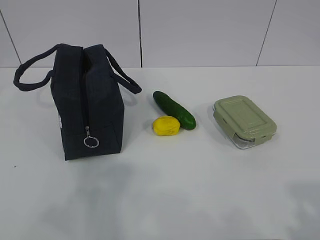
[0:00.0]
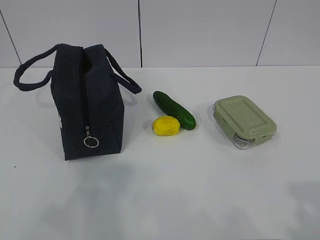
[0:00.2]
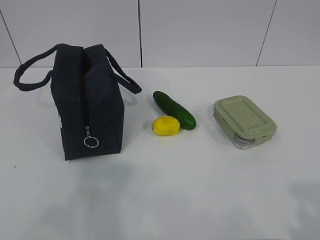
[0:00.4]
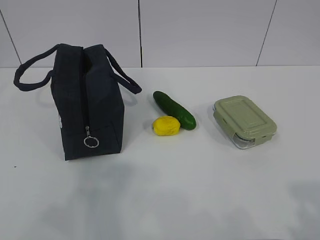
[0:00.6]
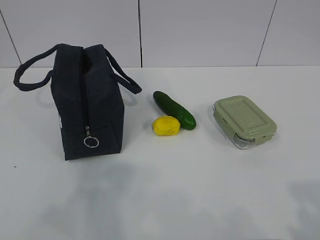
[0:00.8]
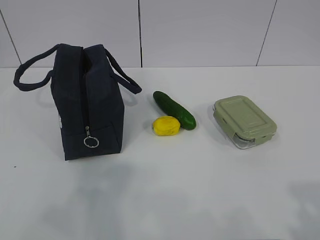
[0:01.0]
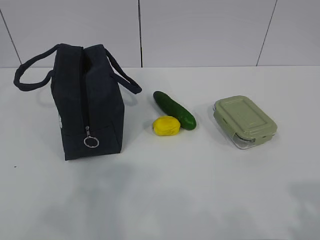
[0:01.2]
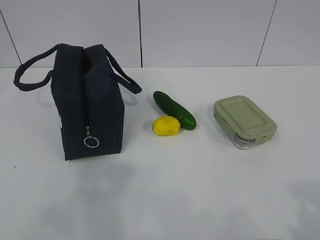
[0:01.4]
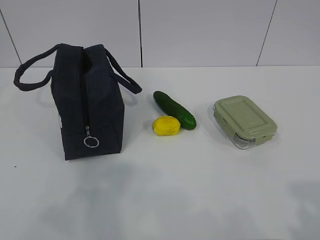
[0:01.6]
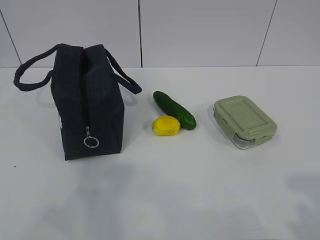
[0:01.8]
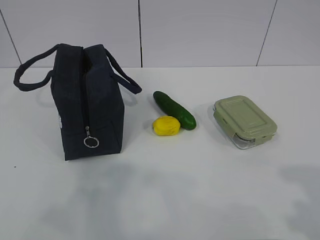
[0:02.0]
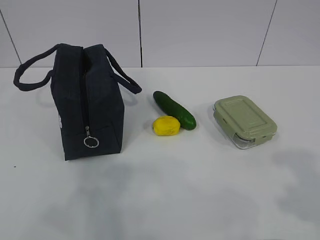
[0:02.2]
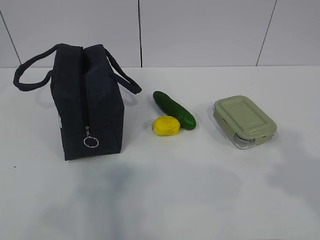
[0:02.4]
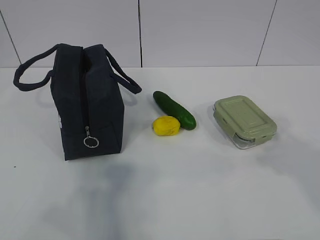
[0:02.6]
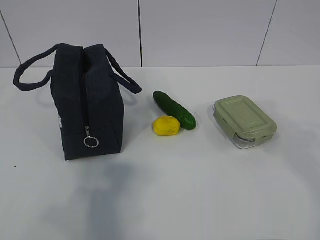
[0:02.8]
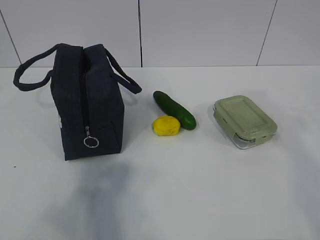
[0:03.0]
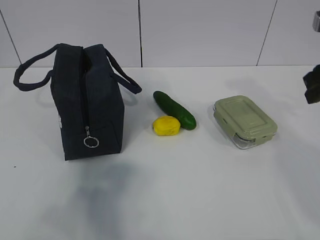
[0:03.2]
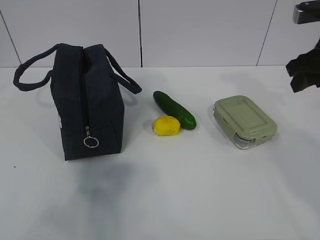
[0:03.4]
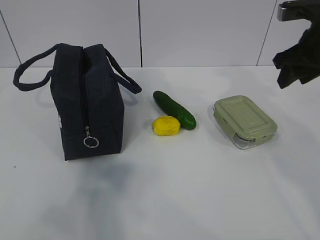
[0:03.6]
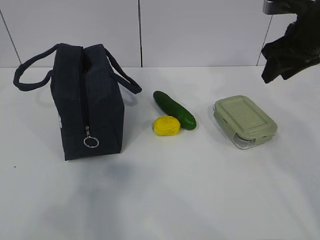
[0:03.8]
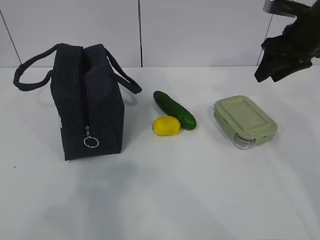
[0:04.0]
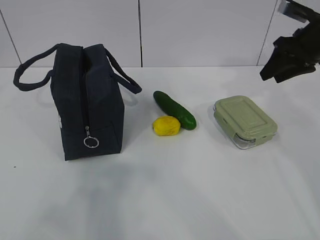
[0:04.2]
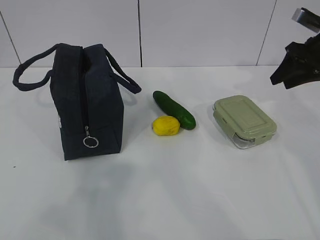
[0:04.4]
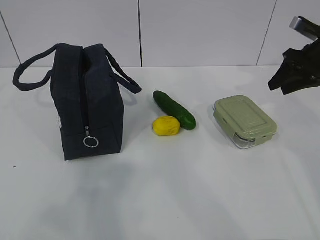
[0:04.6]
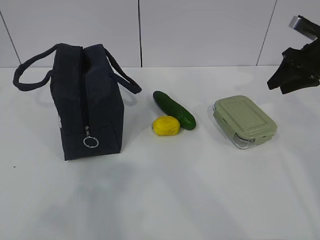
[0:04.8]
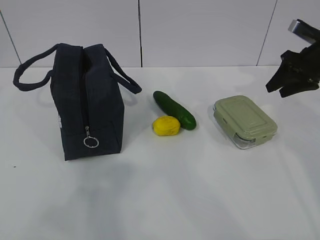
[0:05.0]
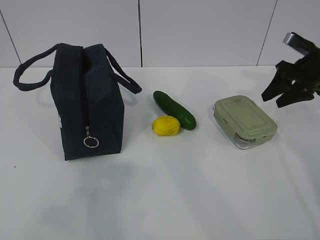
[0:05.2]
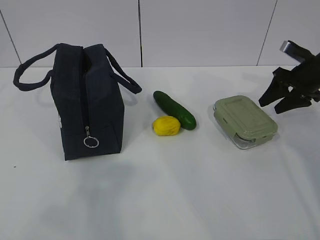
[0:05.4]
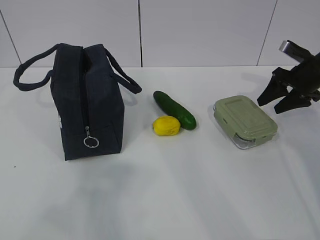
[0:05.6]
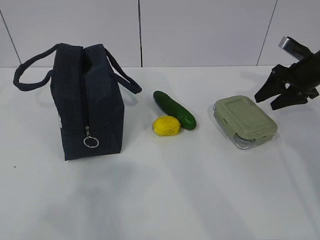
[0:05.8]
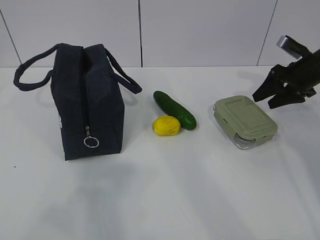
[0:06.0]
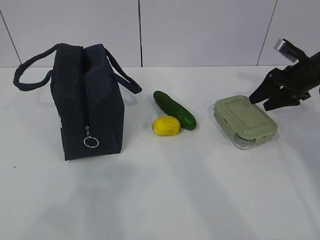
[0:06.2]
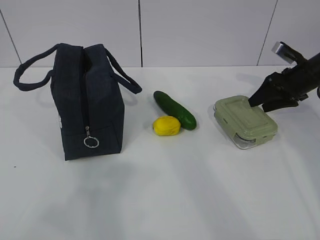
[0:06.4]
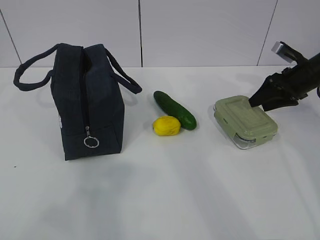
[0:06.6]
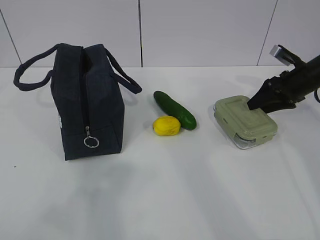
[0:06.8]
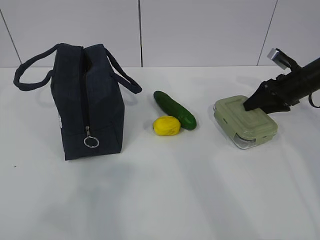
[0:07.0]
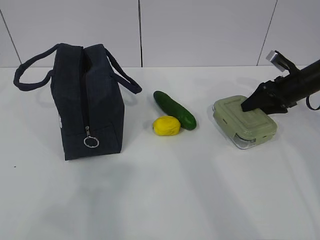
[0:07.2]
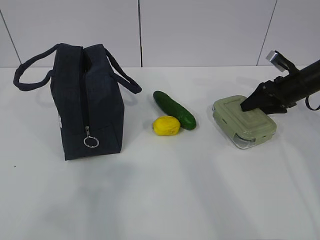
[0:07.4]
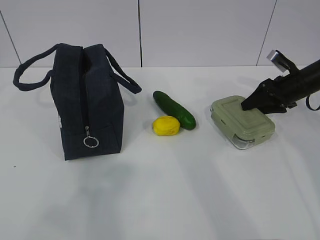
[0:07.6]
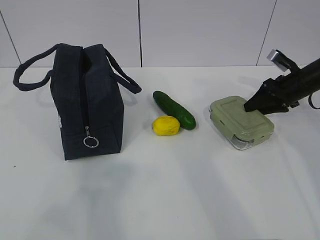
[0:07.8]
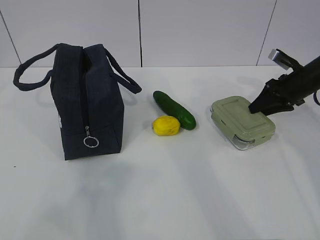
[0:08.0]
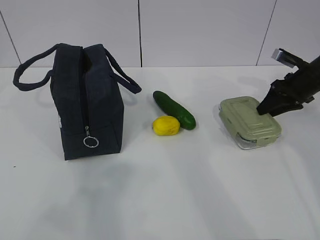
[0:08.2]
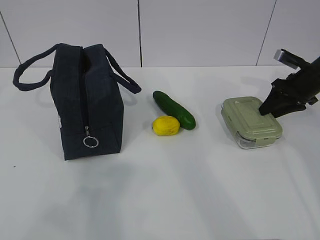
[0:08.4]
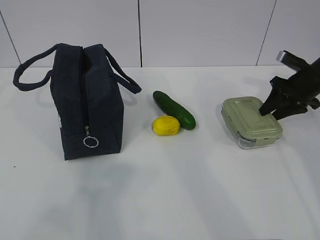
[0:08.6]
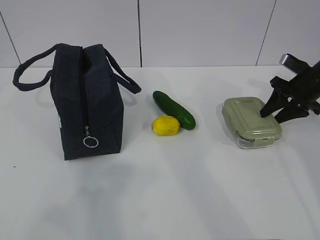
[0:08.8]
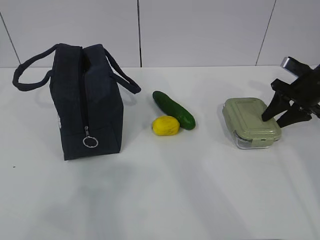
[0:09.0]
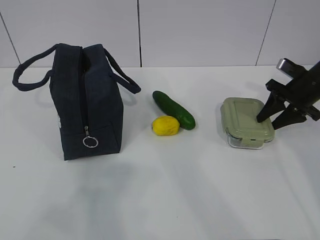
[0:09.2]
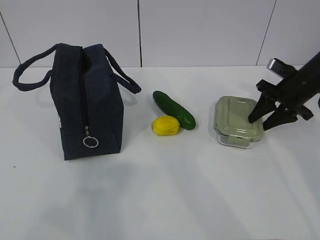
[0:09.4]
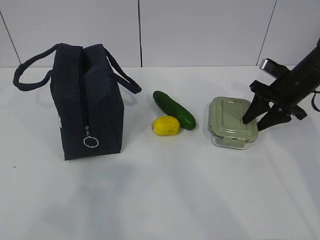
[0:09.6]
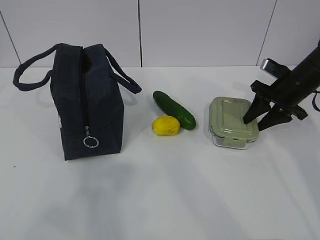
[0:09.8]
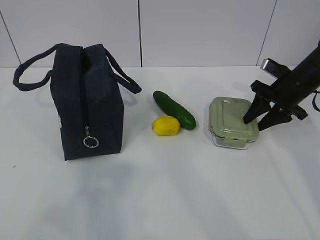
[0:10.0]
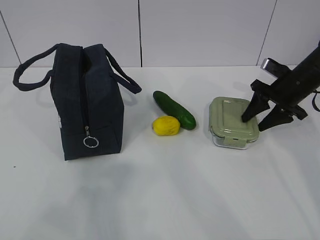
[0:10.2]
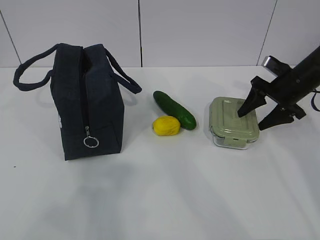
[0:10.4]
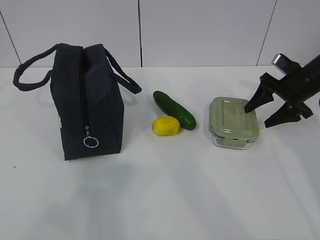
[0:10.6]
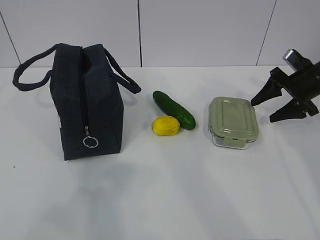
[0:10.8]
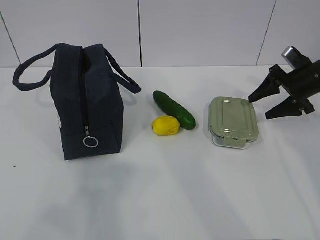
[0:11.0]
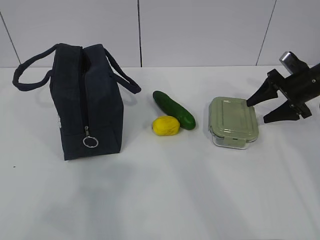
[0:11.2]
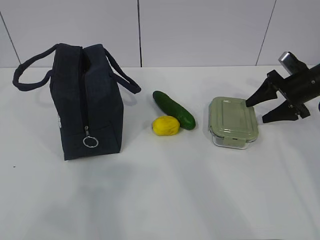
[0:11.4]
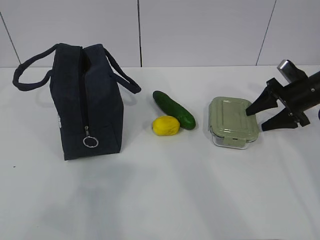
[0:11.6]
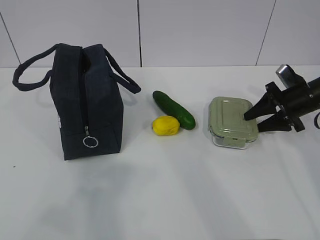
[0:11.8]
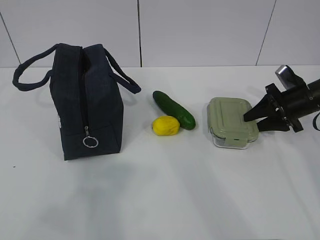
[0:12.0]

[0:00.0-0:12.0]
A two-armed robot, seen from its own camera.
0:01.6 to 0:03.0: The right gripper is displaced forward by approximately 25 cm.
0:03.0 to 0:04.4: The right gripper shifts some 20 cm forward.
0:04.4 to 0:06.0: The right gripper goes about 5 cm downward.
0:06.0 to 0:07.6: The right gripper shifts by roughly 5 cm.
0:09.0 to 0:10.4: The grippers make only small movements.
0:10.4 to 0:12.0: The grippers stay close to where they were, moving slightly.

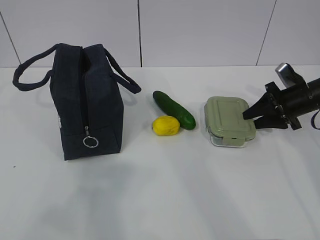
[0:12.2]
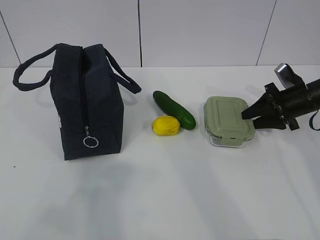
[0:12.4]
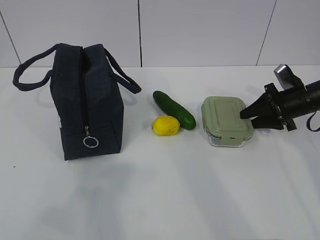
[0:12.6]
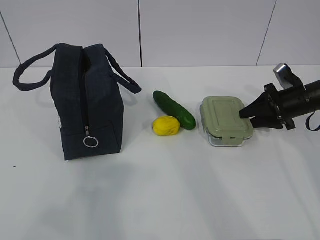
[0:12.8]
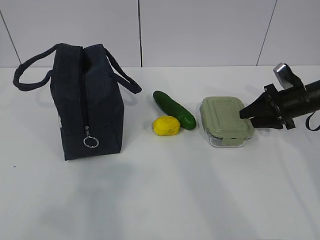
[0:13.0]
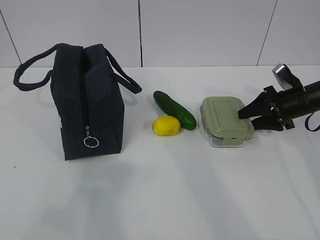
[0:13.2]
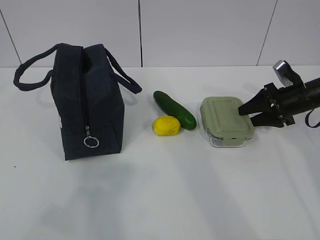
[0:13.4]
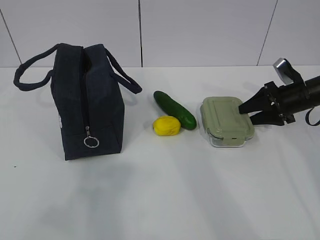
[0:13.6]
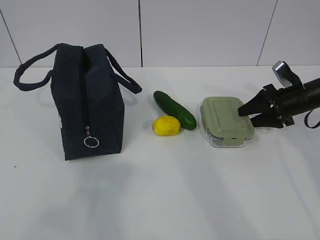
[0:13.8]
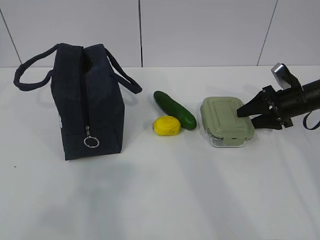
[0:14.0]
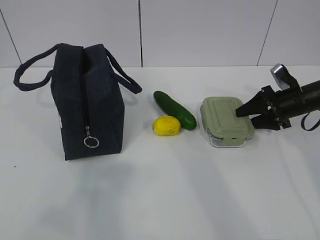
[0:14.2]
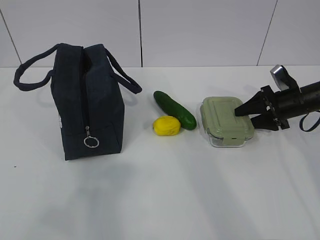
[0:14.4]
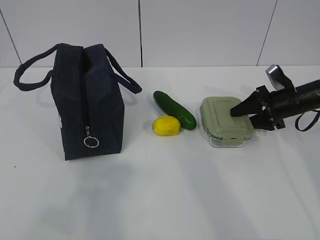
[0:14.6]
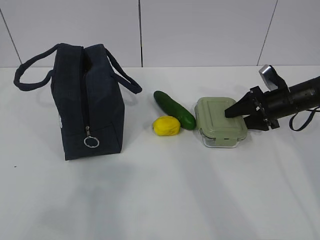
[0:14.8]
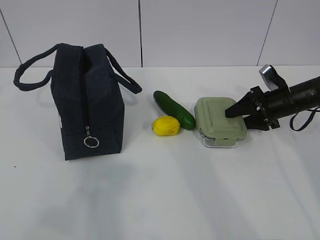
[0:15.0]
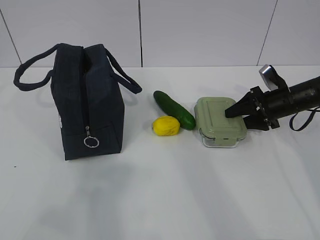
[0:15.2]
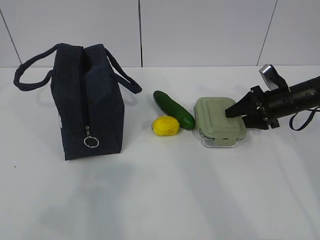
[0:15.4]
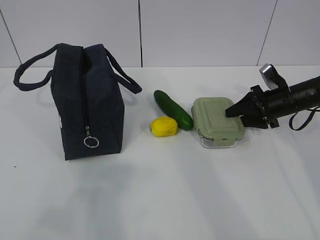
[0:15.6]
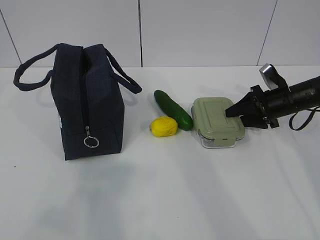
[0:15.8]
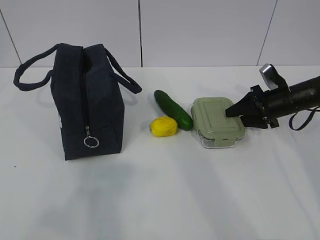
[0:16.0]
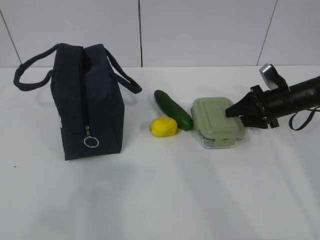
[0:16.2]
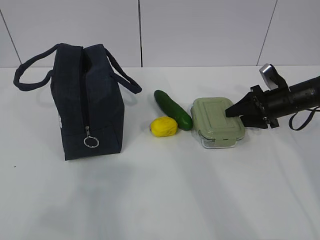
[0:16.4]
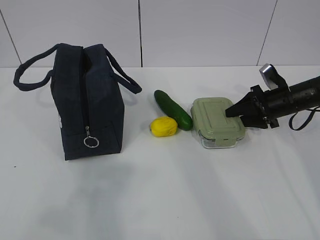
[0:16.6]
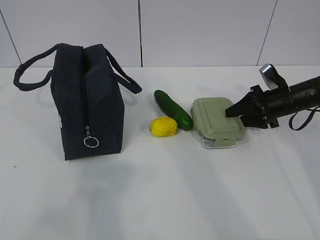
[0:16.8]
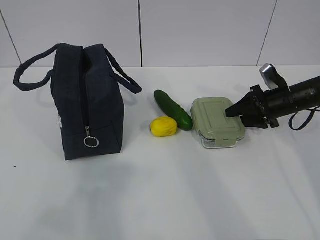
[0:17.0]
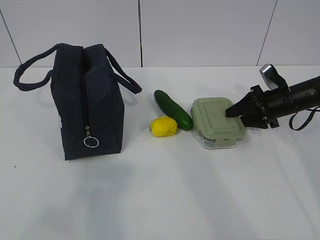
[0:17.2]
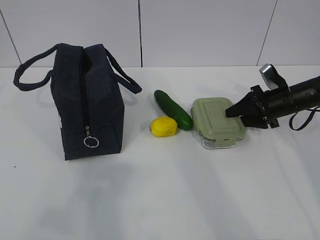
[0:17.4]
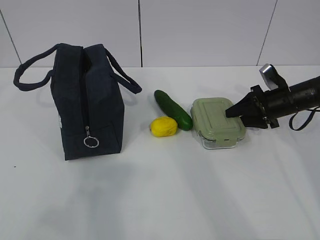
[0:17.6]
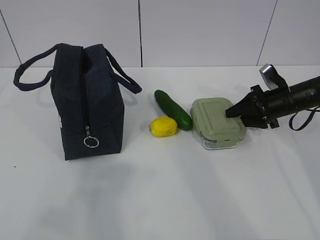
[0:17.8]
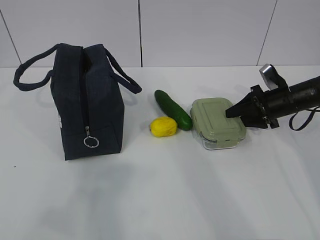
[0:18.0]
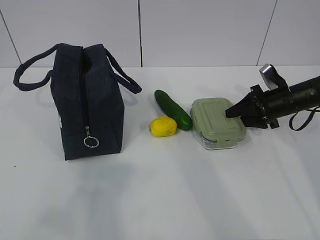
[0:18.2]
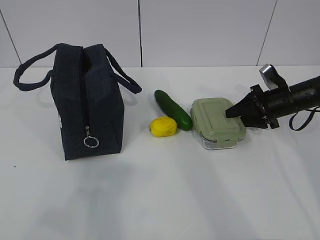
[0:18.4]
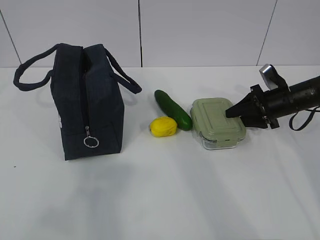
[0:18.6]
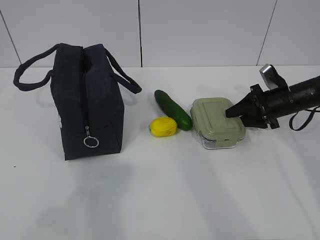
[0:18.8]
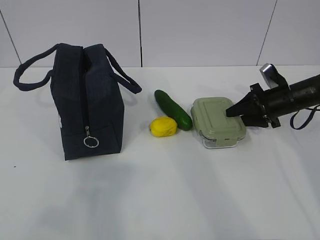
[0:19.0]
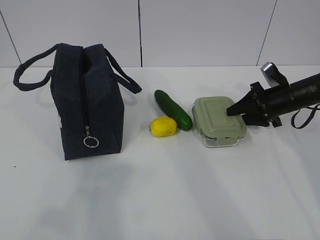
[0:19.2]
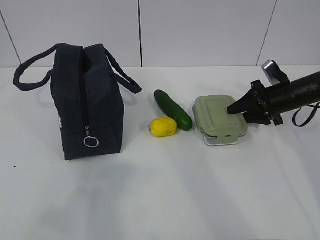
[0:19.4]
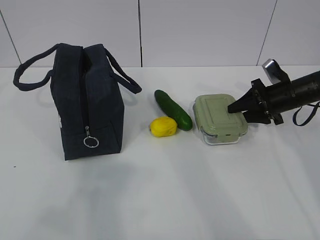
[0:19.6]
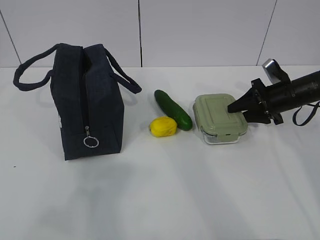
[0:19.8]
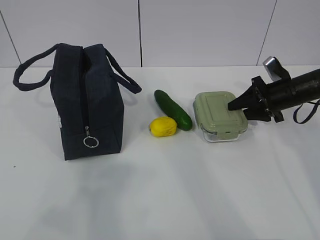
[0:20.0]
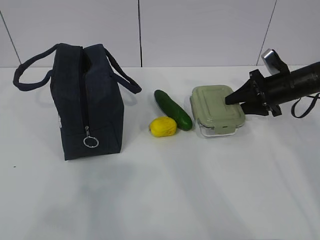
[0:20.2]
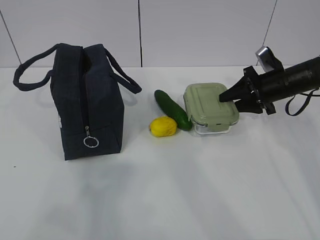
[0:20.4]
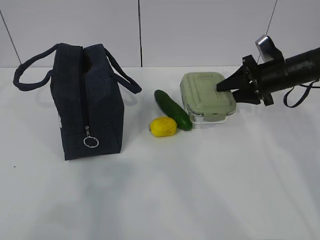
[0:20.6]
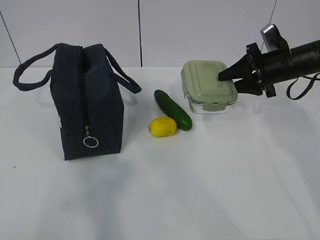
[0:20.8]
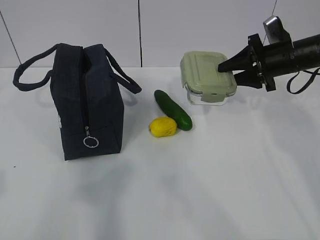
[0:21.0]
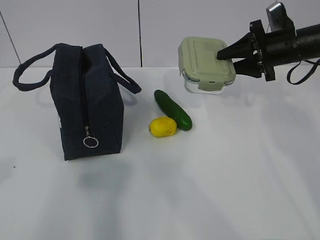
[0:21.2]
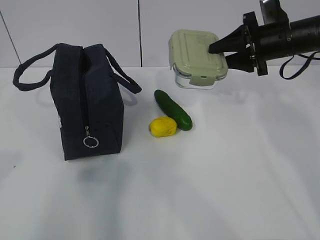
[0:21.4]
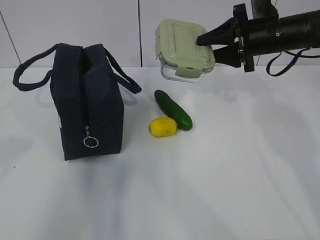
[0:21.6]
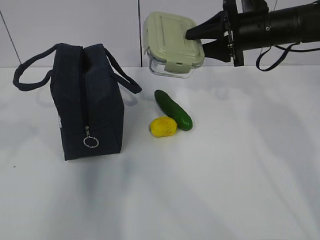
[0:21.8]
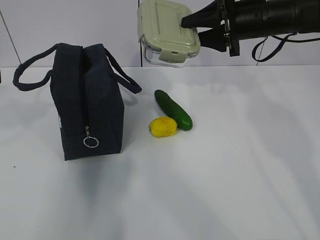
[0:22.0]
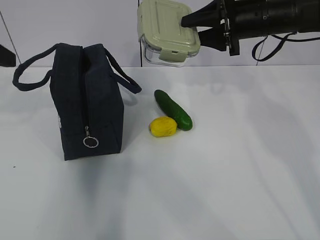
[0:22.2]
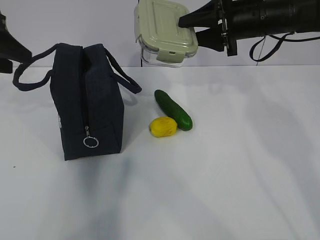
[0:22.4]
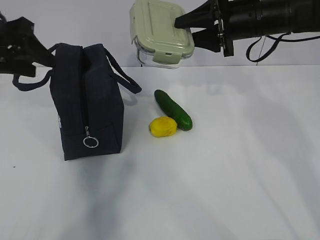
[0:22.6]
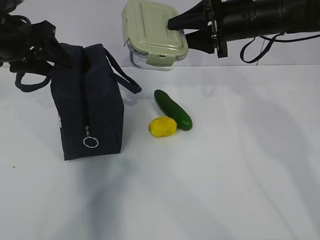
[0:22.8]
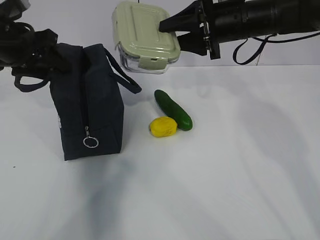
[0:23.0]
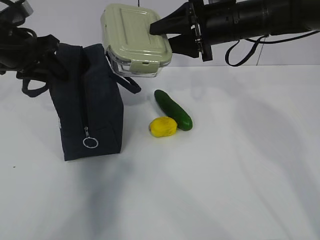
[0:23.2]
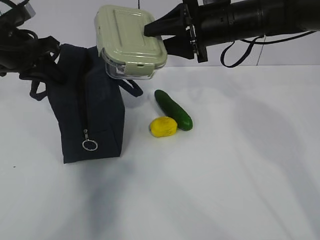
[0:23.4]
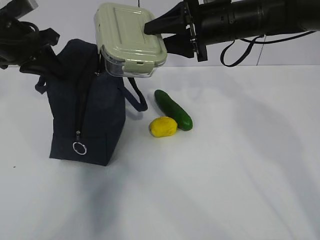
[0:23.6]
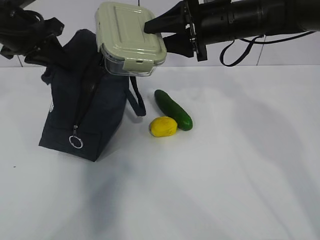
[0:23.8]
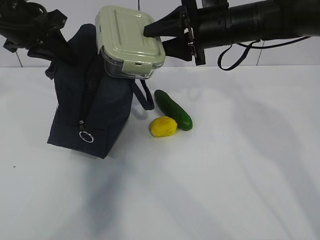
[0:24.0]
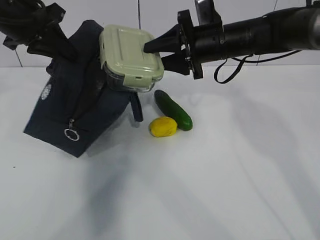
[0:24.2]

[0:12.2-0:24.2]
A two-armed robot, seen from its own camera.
Step, 0:12.2 to 0:15.8: Grab the lunch box with your right hand.
Step, 0:20.2 to 0:23.4: Place it into the bag with your right hand.
0:12.2 to 0:15.2: The grippers move only a little.
0:15.2 to 0:18.2: Neither gripper changes place.
0:18.2 to 0:19.8: The grippers stay close to where they were, moving slightly.
0:19.8 to 0:21.2: The left gripper moves forward, some 5 cm, while the right gripper travels upward by roughly 10 cm.
0:21.2 to 0:22.6: The right gripper travels to the left and upward by approximately 10 cm. Meanwhile the left gripper travels forward by approximately 30 cm, and opens.
0:22.6 to 0:24.2: The right gripper is displaced to the left by some 5 cm. Meanwhile the left gripper ends up roughly 5 cm from where it was, and closes up.
